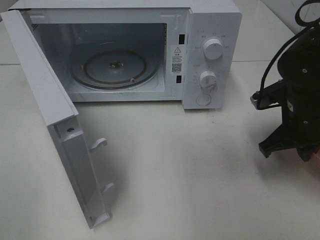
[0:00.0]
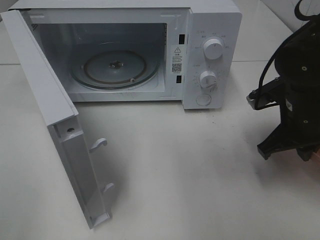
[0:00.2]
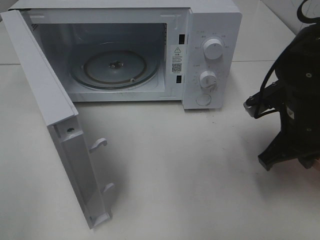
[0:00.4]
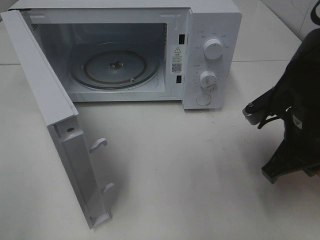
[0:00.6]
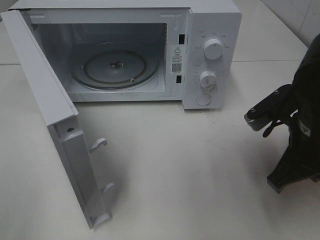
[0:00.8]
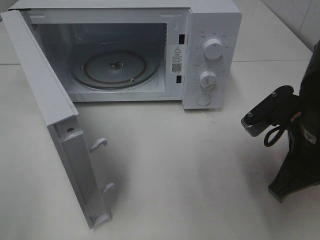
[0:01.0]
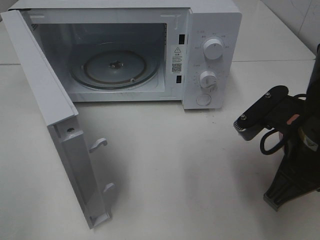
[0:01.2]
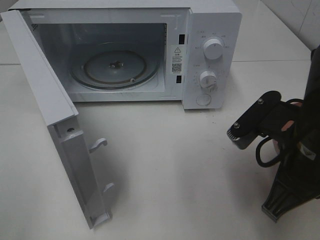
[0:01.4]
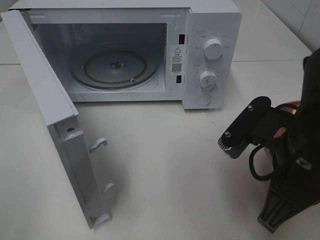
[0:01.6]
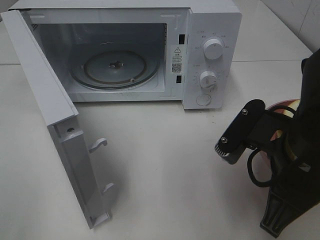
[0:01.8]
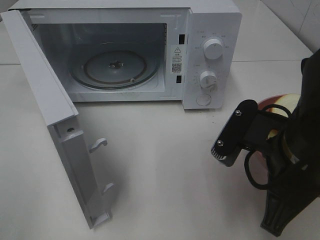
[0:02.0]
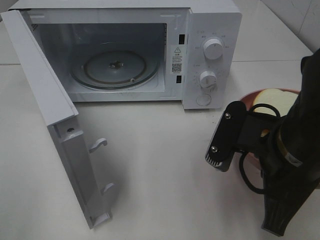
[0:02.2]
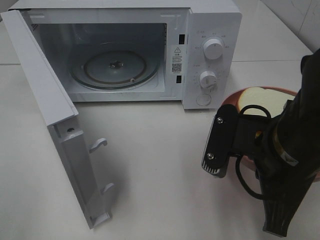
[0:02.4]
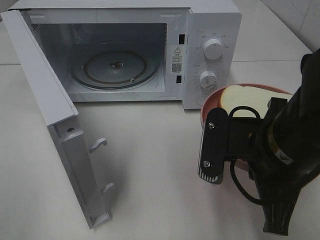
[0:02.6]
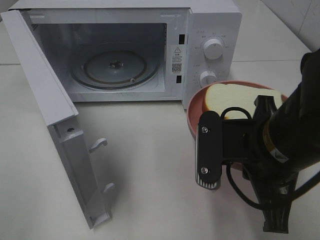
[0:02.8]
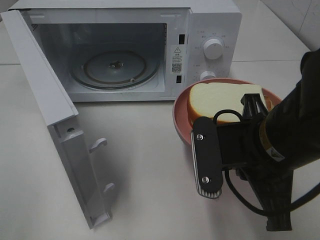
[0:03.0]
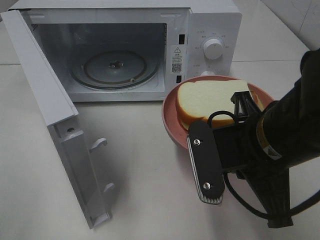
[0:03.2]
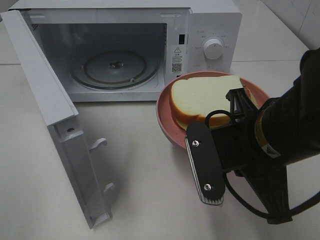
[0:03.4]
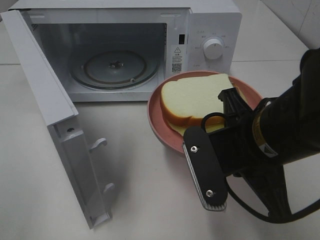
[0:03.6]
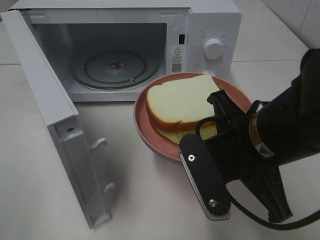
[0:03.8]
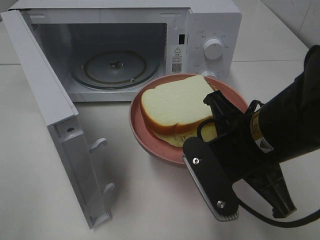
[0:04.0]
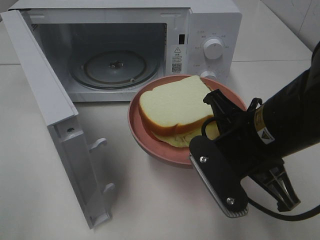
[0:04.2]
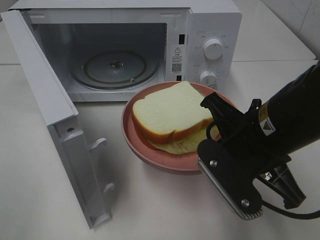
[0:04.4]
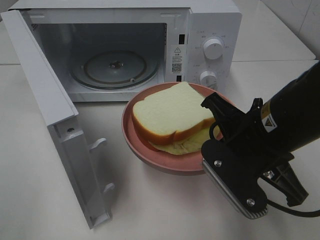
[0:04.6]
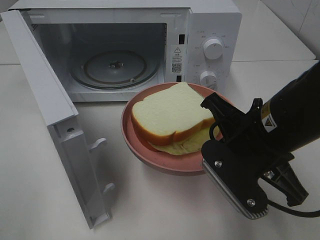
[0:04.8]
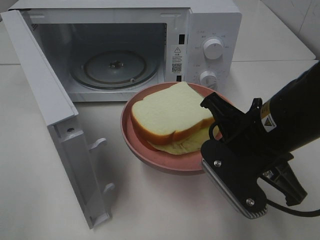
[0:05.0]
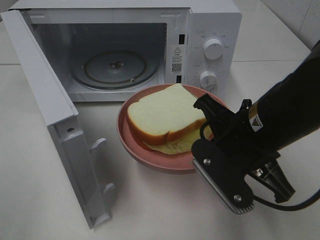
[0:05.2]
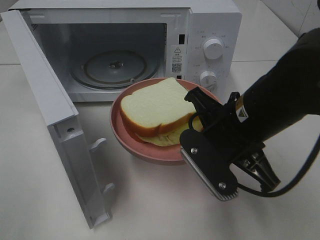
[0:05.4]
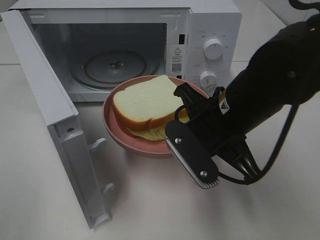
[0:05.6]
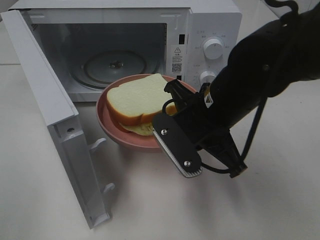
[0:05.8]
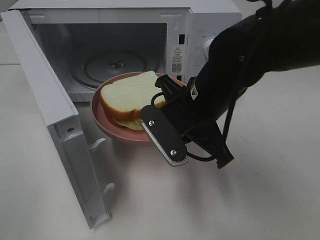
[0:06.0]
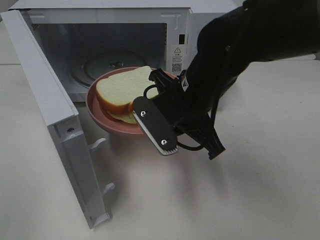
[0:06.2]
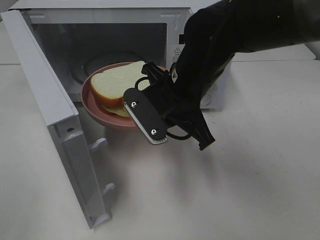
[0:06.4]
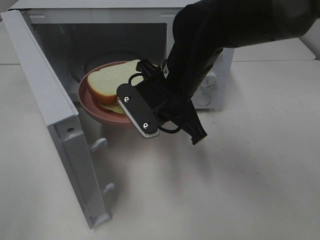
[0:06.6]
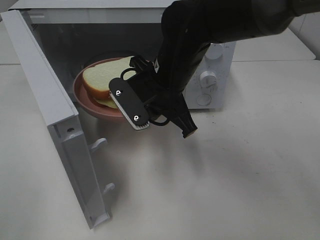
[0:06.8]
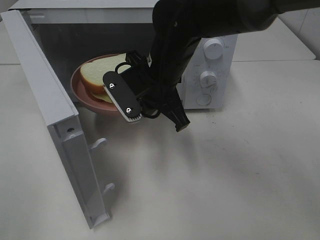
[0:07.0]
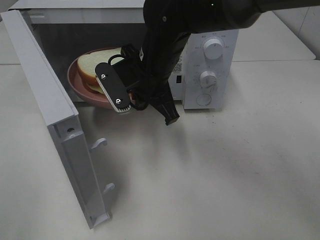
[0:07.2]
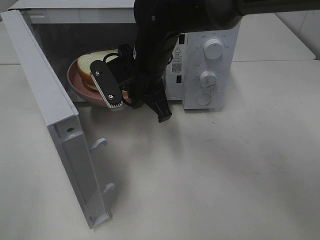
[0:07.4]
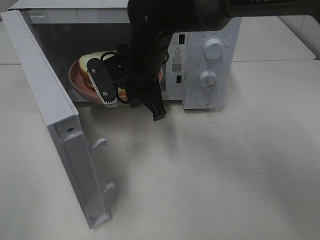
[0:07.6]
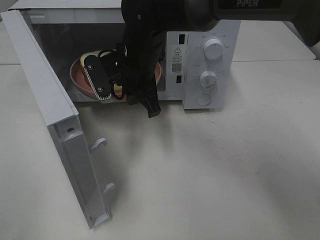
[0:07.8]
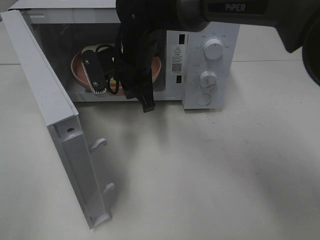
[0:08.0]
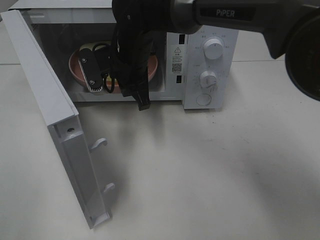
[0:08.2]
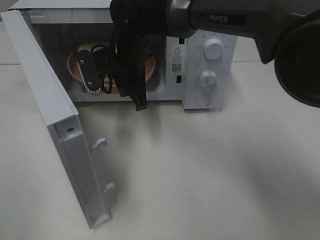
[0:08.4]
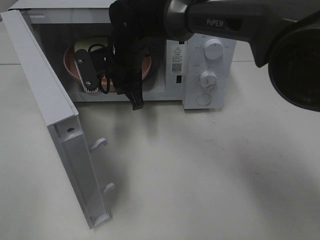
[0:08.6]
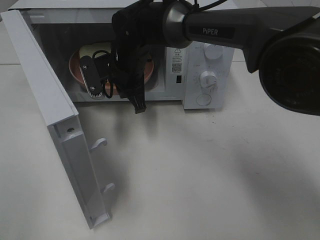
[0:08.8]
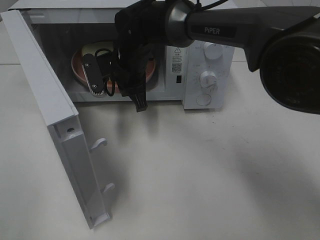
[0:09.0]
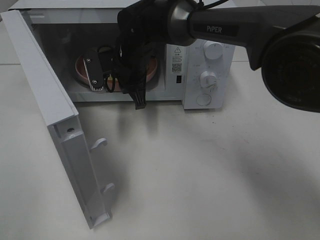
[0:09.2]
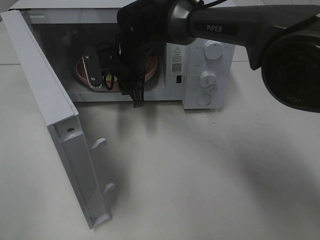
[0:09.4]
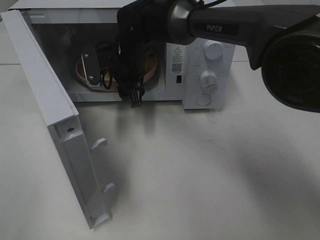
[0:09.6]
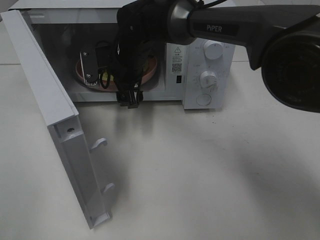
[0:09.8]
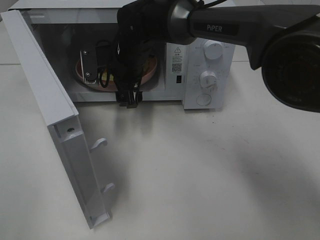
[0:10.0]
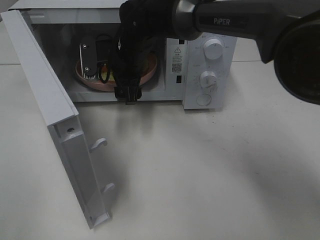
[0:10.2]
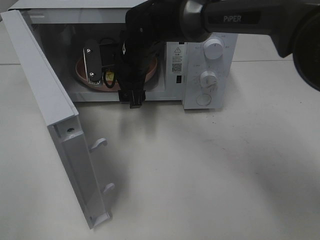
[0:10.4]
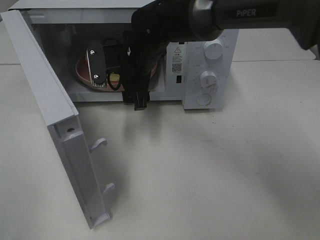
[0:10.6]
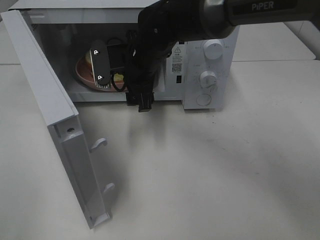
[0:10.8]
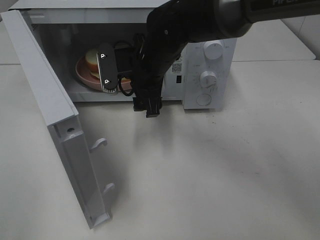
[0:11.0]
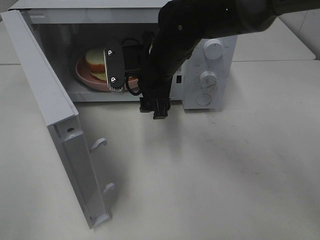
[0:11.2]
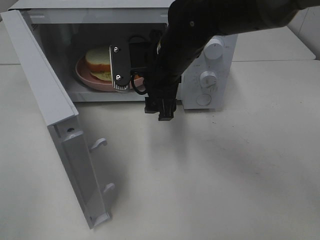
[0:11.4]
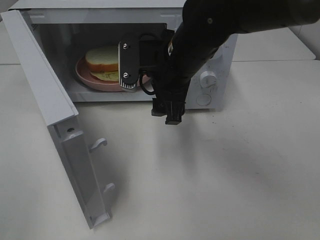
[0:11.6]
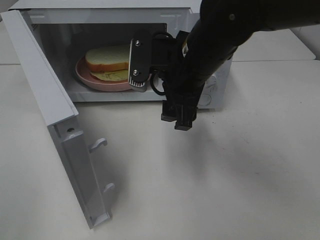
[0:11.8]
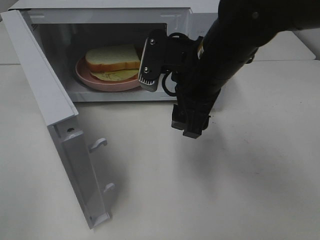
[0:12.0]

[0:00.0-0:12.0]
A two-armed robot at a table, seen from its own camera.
Task of the whole recording: Heat Sandwich.
Step, 0:00.0 to 0:11.0: Right hand: place the plate in the microwave.
0:00.0 to 0:01.6: The right gripper moves backward, to the left and upward, about 15 cm.
0:04.4 to 0:06.0: The right gripper is displaced forward and to the left by some 10 cm.
0:06.0 to 0:07.6: The right gripper goes roughly 15 cm forward and to the left.
0:07.6 to 0:09.0: The right gripper heads forward, covering some 5 cm.
0:09.0 to 0:10.4: The right gripper opens its fingers.
0:10.4 to 0:12.0: The right gripper goes roughly 20 cm backward, to the right and upward.

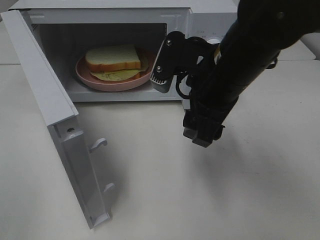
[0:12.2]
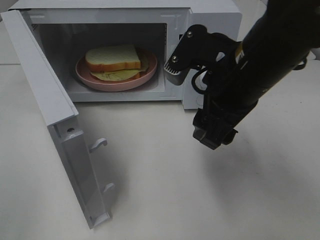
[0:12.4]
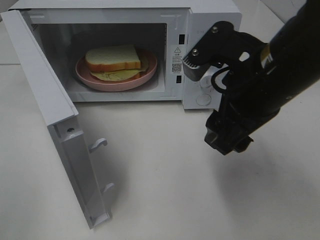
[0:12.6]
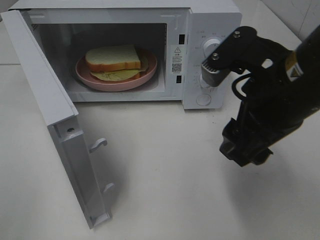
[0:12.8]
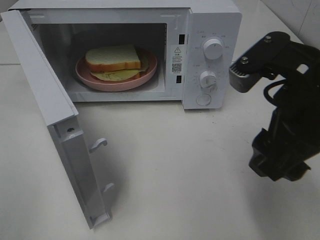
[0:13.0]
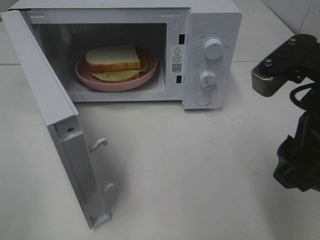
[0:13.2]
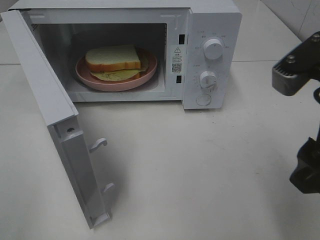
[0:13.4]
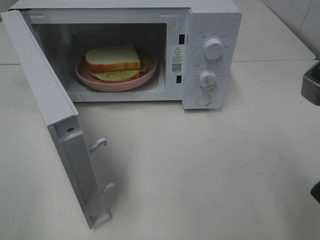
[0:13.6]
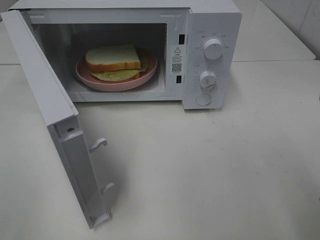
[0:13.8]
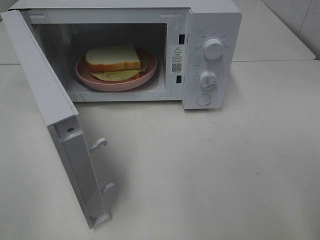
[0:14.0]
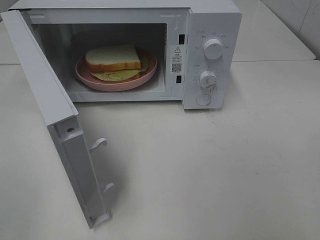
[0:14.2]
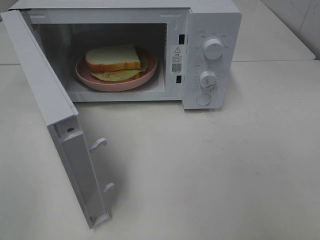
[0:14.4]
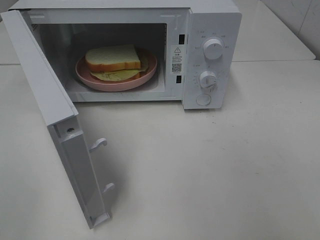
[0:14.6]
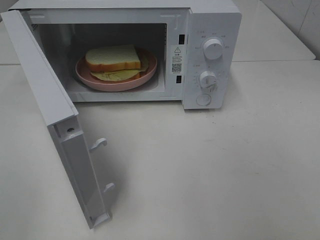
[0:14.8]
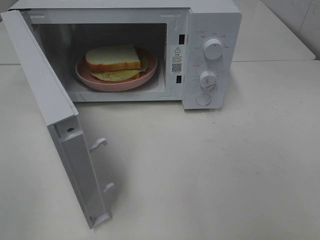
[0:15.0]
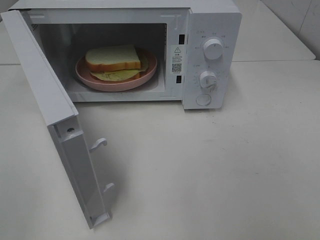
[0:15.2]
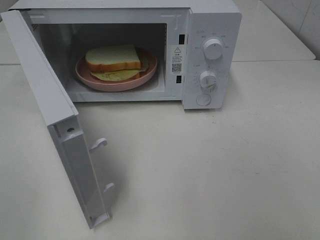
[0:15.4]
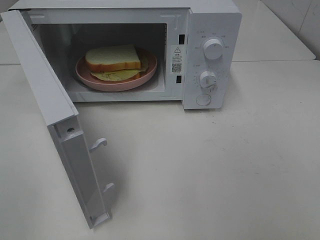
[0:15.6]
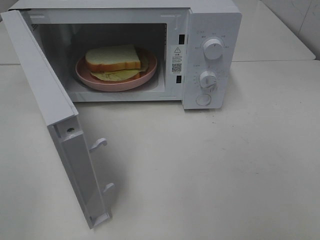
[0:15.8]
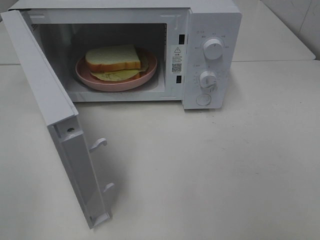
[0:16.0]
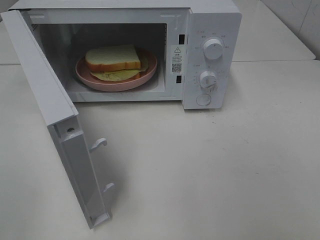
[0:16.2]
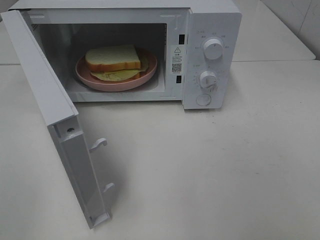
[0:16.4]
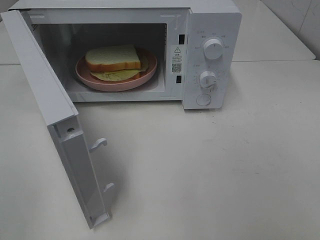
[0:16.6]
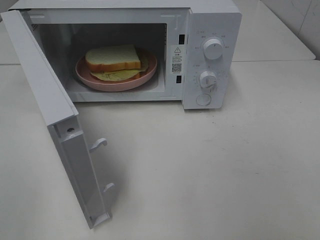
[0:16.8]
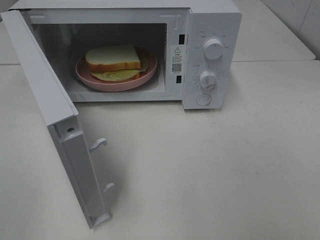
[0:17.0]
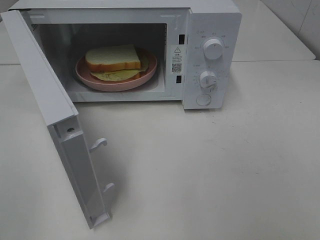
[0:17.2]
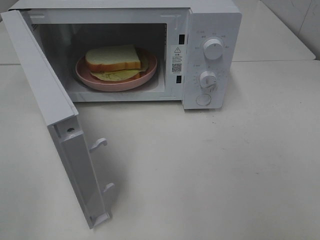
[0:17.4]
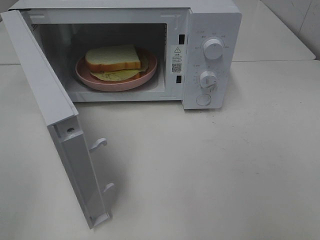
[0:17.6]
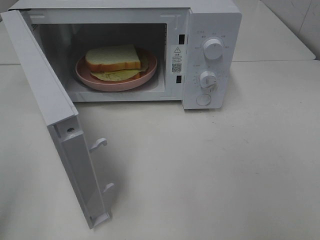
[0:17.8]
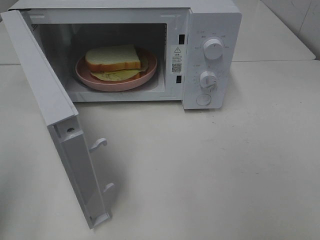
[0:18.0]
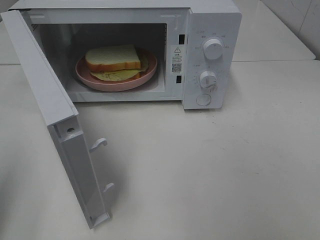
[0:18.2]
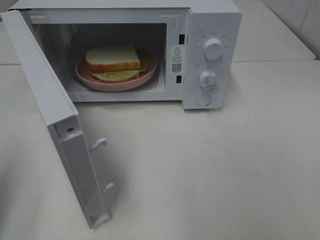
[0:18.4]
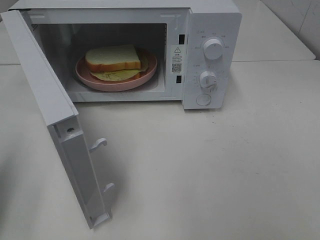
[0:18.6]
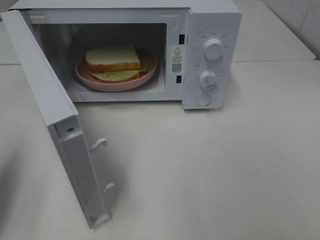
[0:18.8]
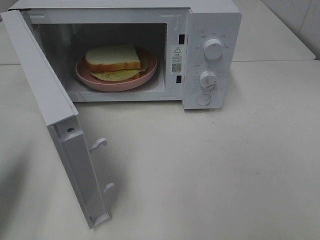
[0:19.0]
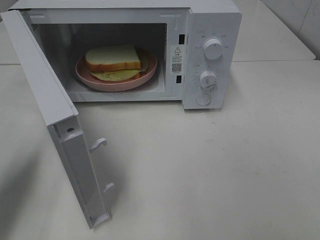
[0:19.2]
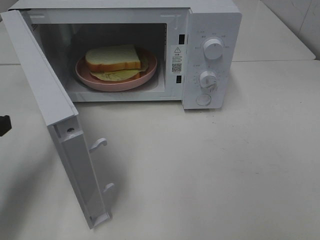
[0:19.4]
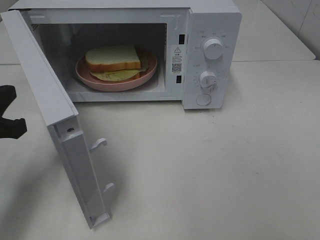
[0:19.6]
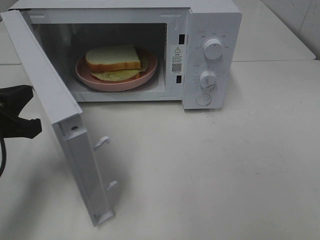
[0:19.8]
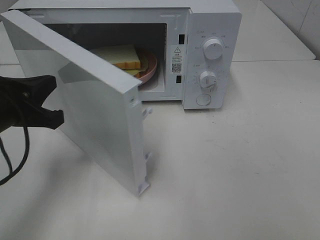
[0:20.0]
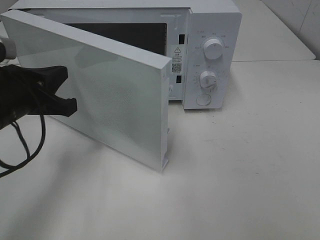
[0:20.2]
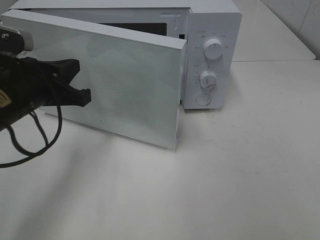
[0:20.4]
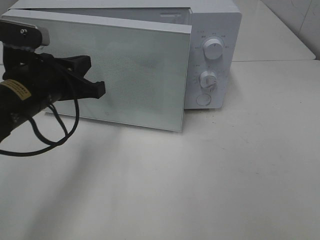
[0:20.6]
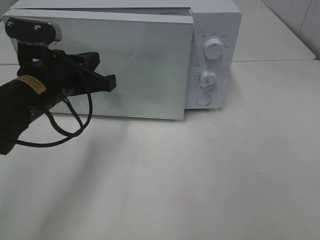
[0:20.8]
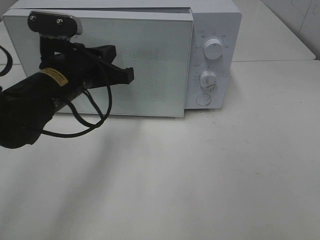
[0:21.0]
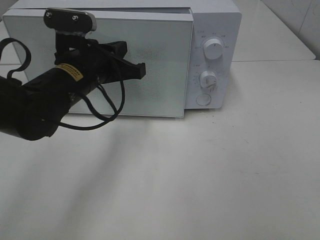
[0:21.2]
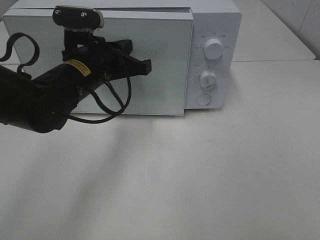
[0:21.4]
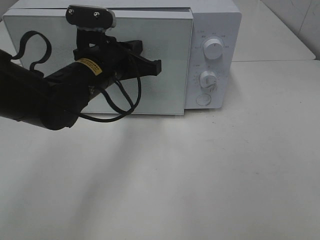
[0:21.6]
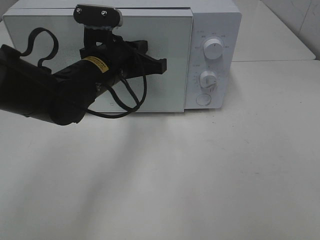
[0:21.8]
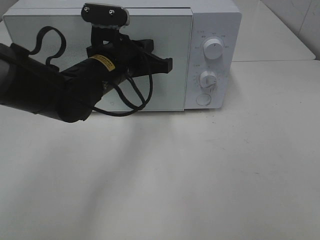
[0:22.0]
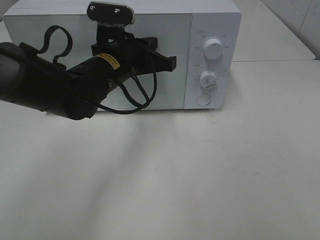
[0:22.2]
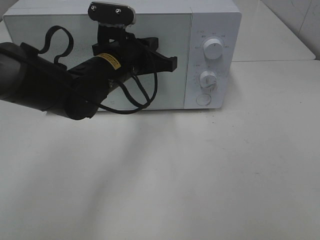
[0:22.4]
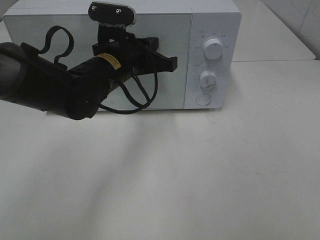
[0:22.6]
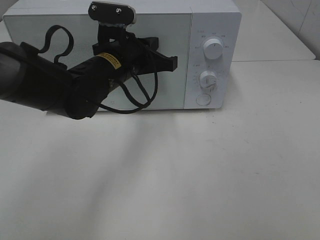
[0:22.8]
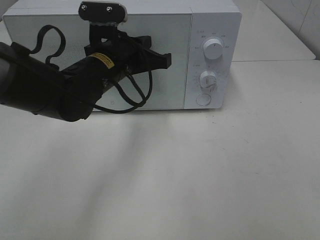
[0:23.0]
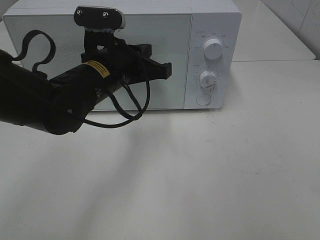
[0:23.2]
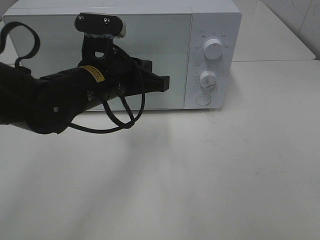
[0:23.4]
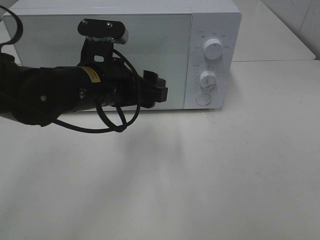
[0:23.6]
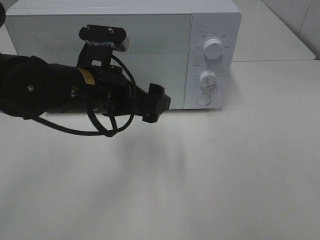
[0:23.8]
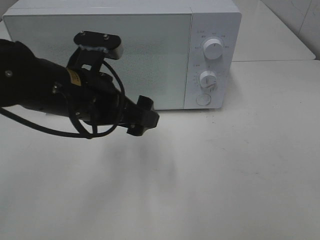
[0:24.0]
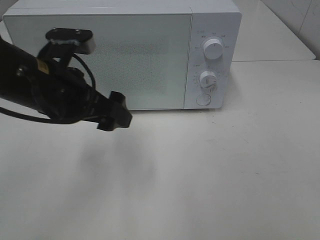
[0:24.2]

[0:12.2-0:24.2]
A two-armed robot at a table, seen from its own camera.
Task of the whole recording: Heat Sandwich.
Step, 0:12.2 to 0:22.2: Left hand: close the microwave door.
0:12.2 to 0:13.8: The right gripper heads backward and to the right, covering about 20 cm.
0:13.8 to 0:15.2: The right gripper travels backward and to the right by about 15 cm.
0:15.2 to 0:16.6: Both grippers stay about where they are.
0:18.2 to 0:19.8: The left gripper goes roughly 15 cm forward, downward and to the right.
0:19.8 to 0:21.2: The left gripper goes approximately 15 cm to the right and forward.
0:21.2 to 0:22.6: The left gripper ends up approximately 5 cm from where it was.
0:22.6 to 0:24.2: The left gripper shifts roughly 10 cm backward and to the left, and opens up.
